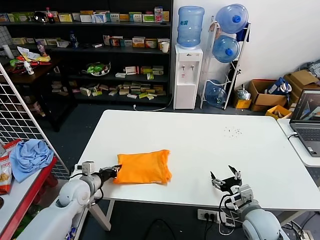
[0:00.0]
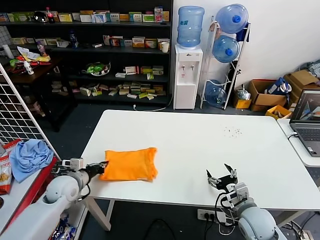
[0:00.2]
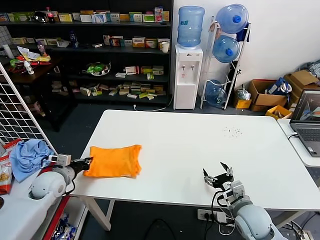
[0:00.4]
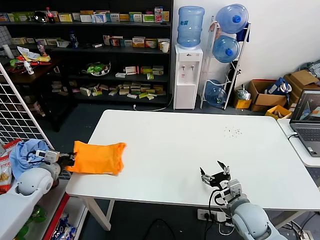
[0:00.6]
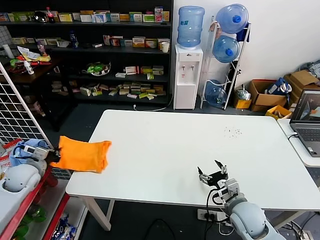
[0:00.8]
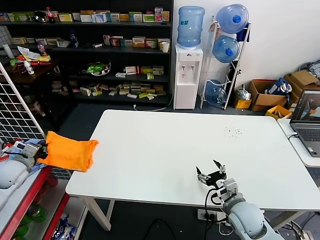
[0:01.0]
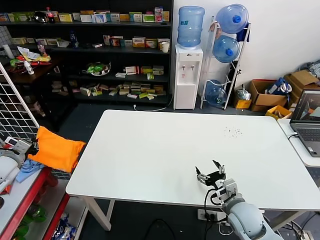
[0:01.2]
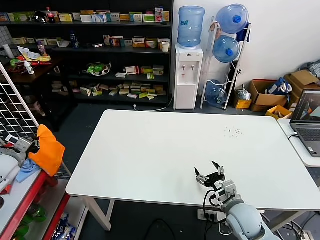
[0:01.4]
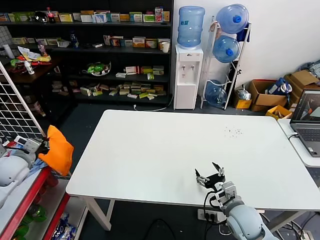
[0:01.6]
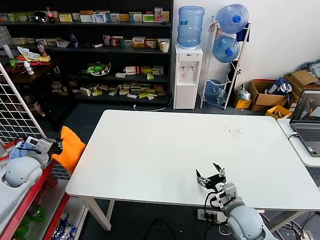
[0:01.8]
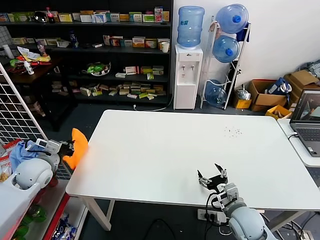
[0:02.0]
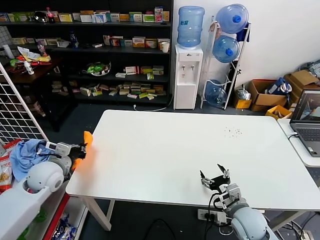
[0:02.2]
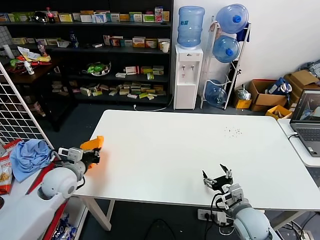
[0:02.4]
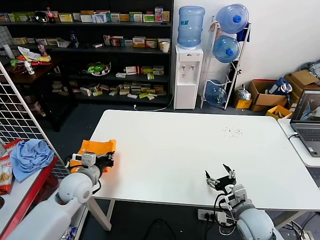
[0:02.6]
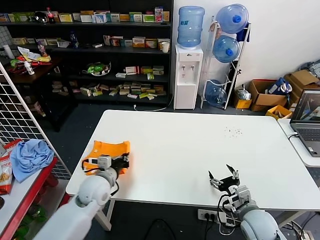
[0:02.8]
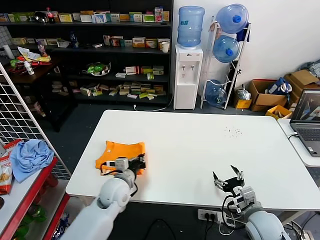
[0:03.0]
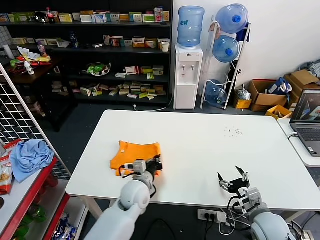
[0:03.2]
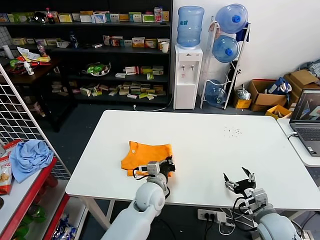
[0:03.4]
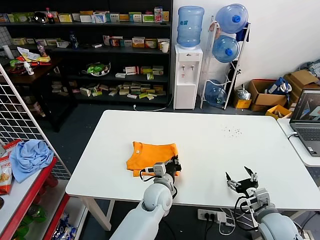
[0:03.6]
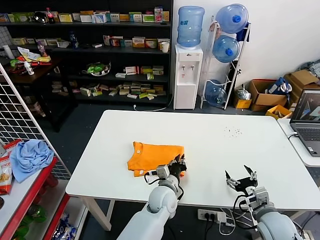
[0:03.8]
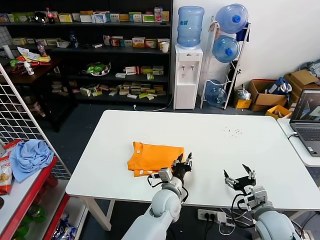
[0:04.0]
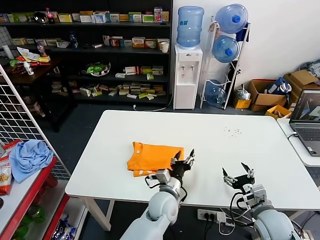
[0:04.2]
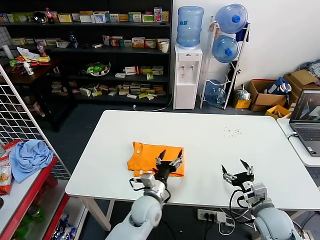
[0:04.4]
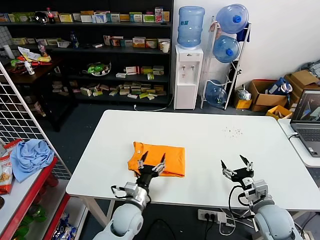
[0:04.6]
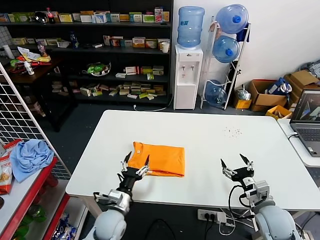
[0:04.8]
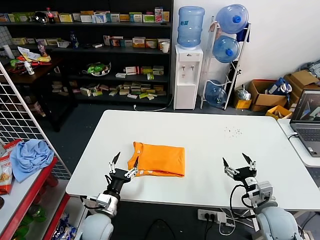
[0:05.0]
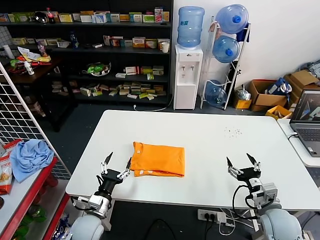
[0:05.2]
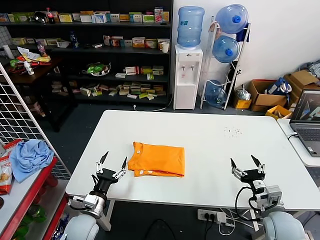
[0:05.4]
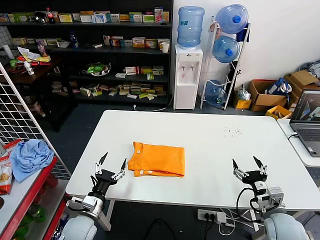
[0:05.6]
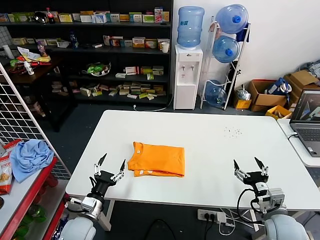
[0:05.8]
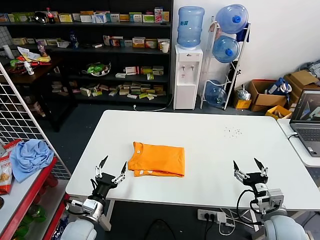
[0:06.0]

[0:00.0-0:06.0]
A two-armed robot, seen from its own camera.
Task of the whole recording: fold and organize the clothes.
Step, 0:00.0 to 0:03.8: Flip the folded clothes over with left gripper.
0:00.0 to 0:01.6: The left gripper travels to the left and upward by roughly 25 cm.
0:01.6 to 0:03.0: The right gripper changes place by approximately 5 cm. Meanwhile the left gripper moves to the right, roughly 30 cm.
0:03.0 to 0:04.4: The left gripper moves to the right, some 15 cm, and opens its fingers.
0:04.4 to 0:06.0: The left gripper is displaced to the left by about 25 cm.

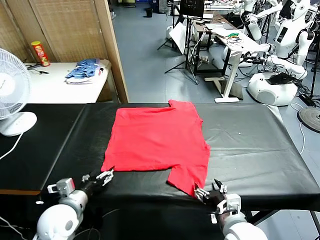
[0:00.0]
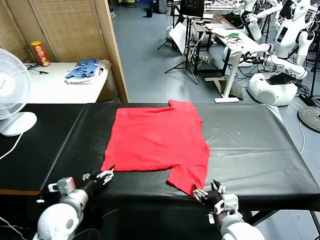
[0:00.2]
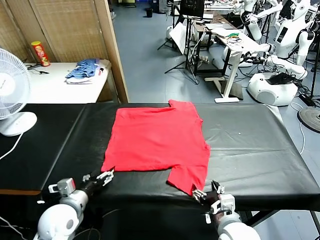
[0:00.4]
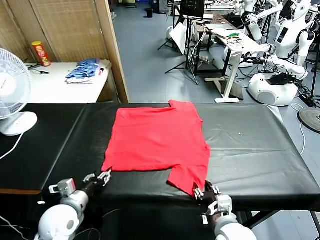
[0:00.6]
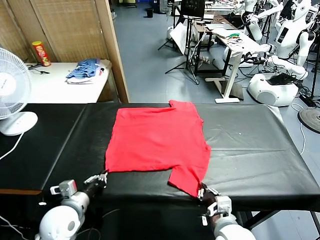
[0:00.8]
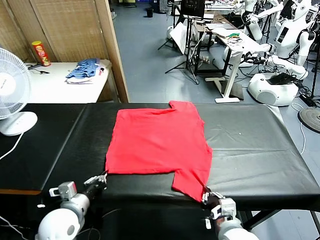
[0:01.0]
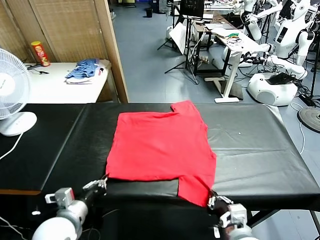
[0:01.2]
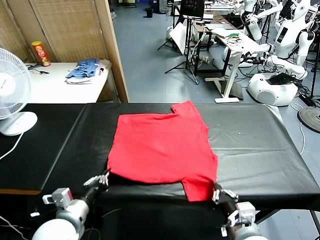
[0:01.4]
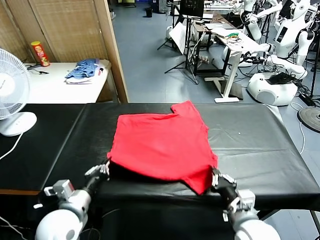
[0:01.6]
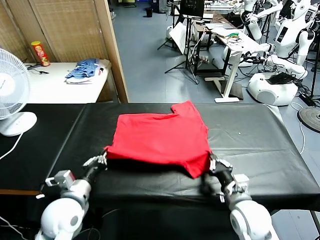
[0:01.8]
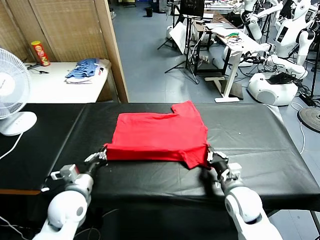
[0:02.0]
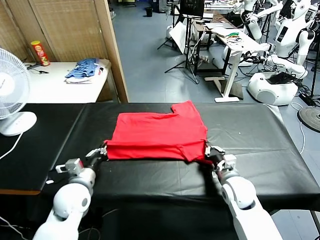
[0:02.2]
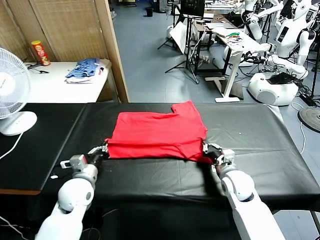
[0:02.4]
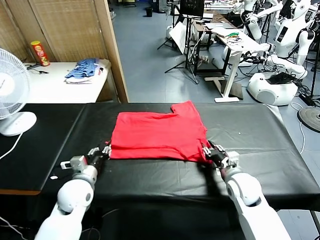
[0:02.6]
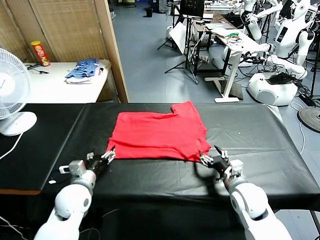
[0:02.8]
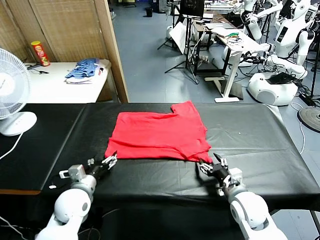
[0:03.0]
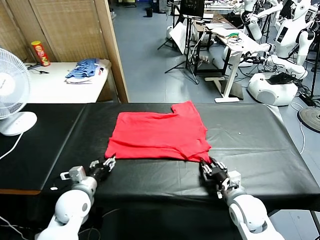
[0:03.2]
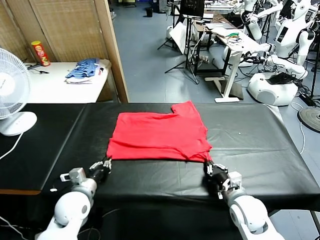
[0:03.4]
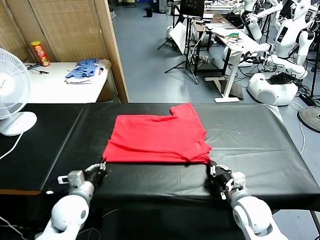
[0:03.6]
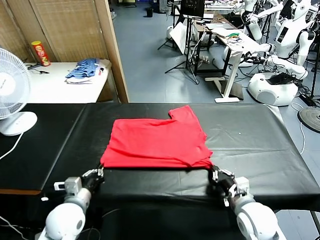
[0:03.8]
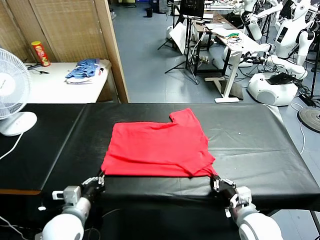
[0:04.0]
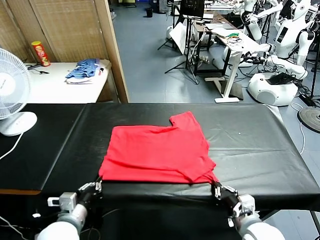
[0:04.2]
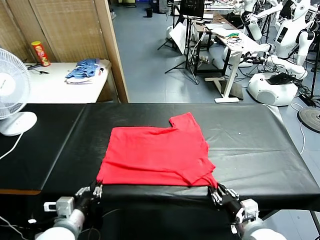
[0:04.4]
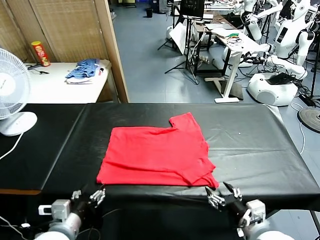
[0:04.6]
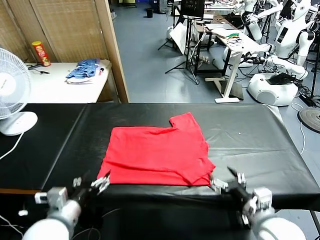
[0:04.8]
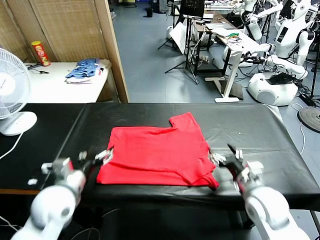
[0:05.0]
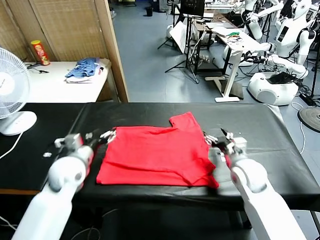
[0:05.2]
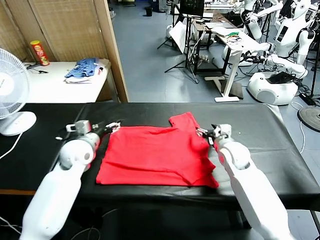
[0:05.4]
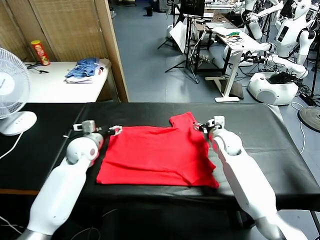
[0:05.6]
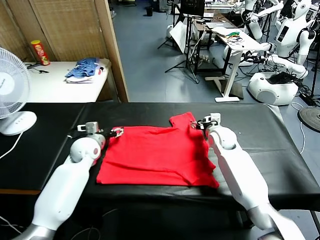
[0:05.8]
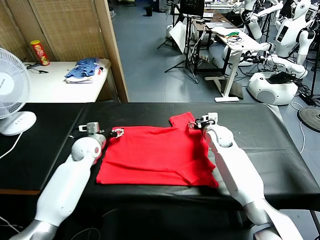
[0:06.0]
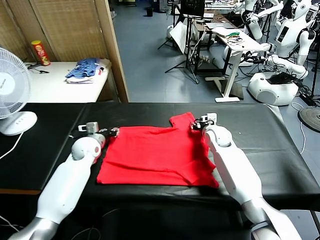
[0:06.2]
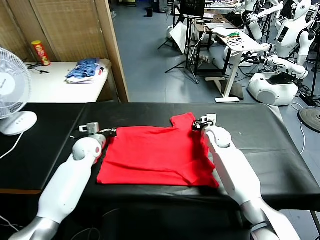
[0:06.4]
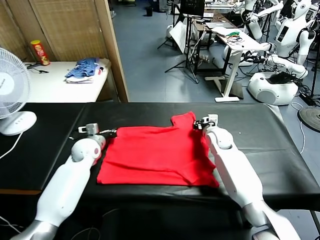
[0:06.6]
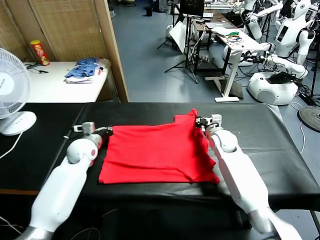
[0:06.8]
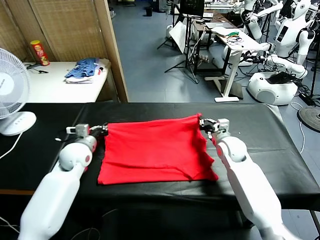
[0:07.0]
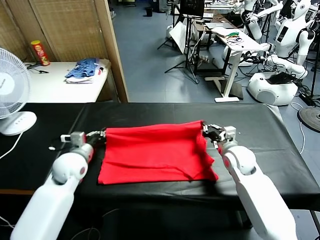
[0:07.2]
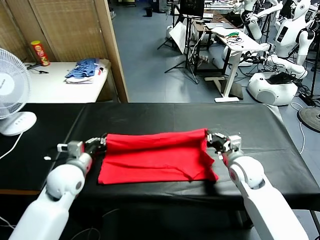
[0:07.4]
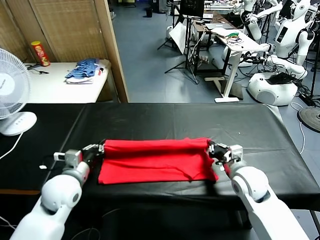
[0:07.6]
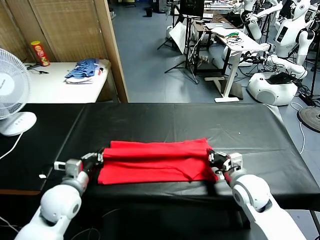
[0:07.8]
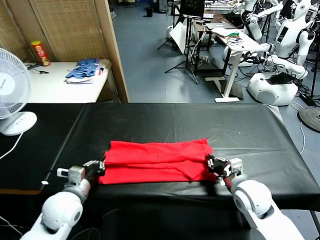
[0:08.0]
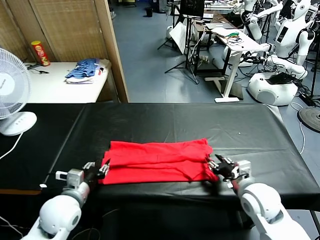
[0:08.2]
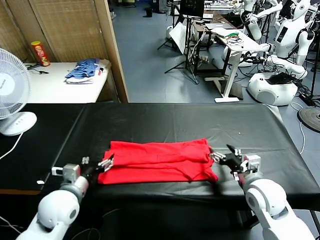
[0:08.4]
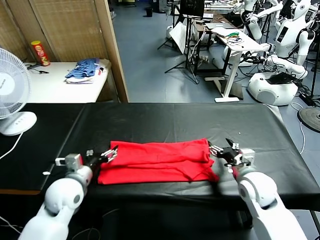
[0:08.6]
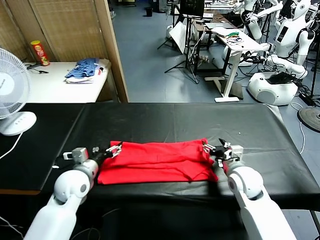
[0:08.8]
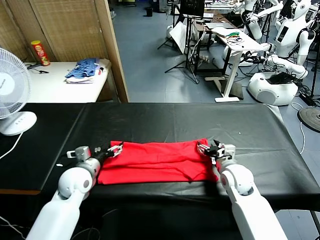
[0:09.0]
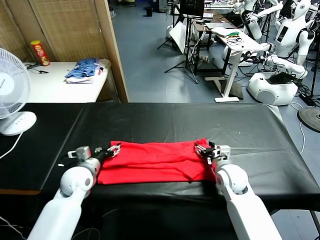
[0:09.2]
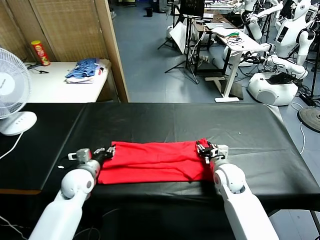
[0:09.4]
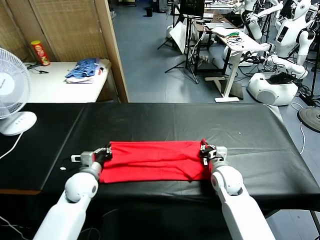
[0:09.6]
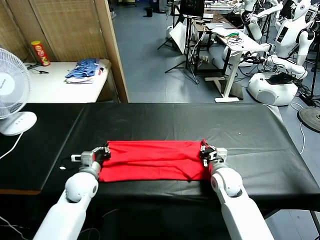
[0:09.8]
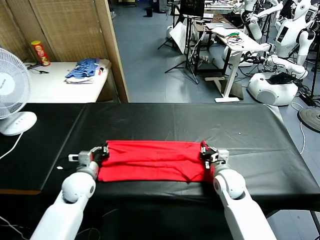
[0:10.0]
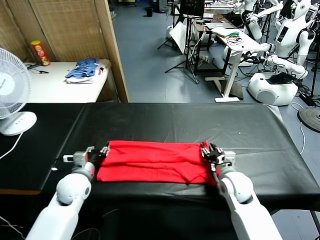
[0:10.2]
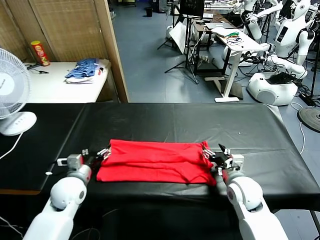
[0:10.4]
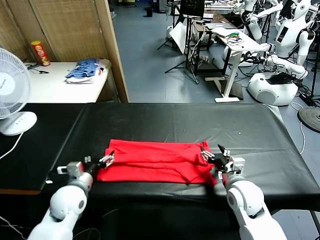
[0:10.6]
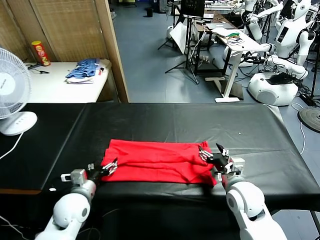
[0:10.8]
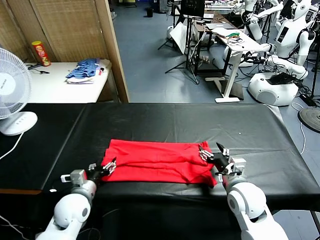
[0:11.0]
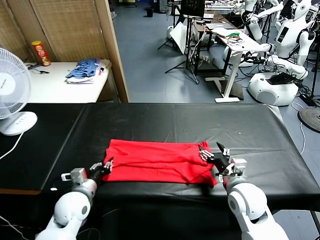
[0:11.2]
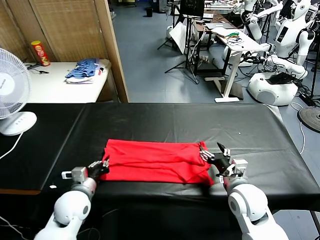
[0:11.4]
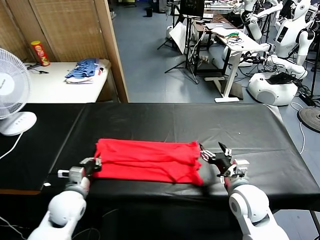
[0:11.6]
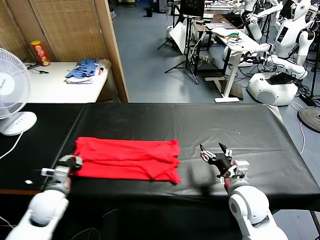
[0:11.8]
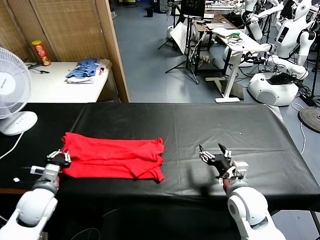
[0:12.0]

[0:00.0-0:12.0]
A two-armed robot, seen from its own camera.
Task of the whole recording: fold and organize the clothes.
Step, 0:00.0 to 0:00.8: use both grippers simultaneously to clamp the lower edge of the clothing fabric.
Step, 0:01.0 to 0:02.8: use both grippers to drag the lower edge of the fabric forward and fold it over the upper edge.
Step, 0:03.0 to 0:04.6: Drag the clothes downward with both gripper.
Step, 0:04.8 to 0:06.6: use both grippers simultaneously to clamp the upper edge of the clothing fabric.
Step, 0:06.8 to 0:08.2: use both grippers to drag the upper edge of the fabric backward and fold it over the lower edge.
Step, 0:08.4 to 0:11.2: use the left gripper to clamp the left edge of the fabric.
0:01.6 to 0:03.0: The right gripper goes forward and returns, some 10 cm each way, and opens and closes again. The left gripper moves downward and forward, some 10 cm, and opens up.
0:03.0 to 0:04.4: The right gripper travels backward and upward by some 15 cm, and opens up. The left gripper shifts approximately 10 cm backward, and closes up.
0:04.4 to 0:06.0: Both grippers travel together forward, about 35 cm. The left gripper opens its fingers.
0:06.0 to 0:07.6: The grippers both shift backward by roughly 20 cm. The left gripper closes up, while the right gripper closes up.
0:07.6 to 0:09.0: Both grippers move forward, about 5 cm. The left gripper opens, while the right gripper opens.
0:09.0 to 0:10.4: The left gripper closes and opens again; the right gripper moves backward, about 5 cm, and closes, then reopens.
0:10.4 to 0:12.0: The left gripper goes approximately 5 cm to the left, and closes its fingers. Meanwhile the right gripper shifts by approximately 5 cm.

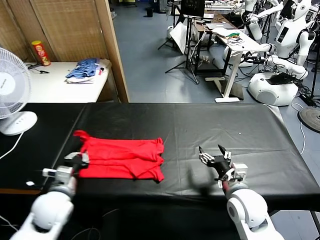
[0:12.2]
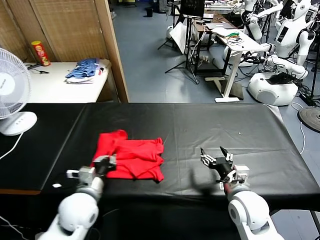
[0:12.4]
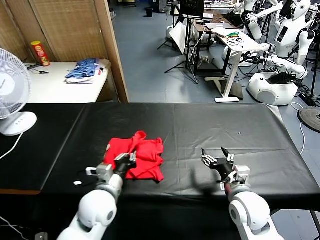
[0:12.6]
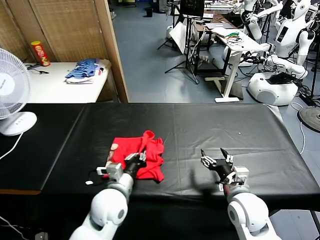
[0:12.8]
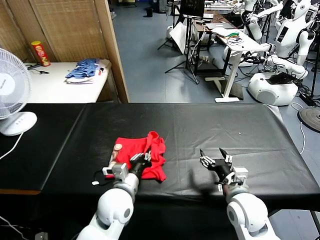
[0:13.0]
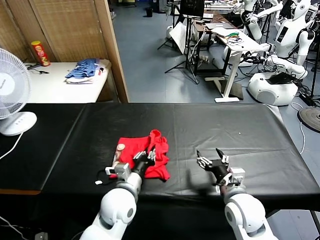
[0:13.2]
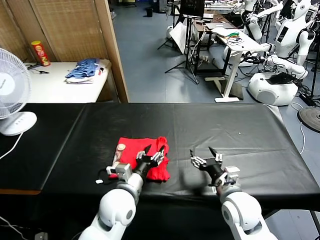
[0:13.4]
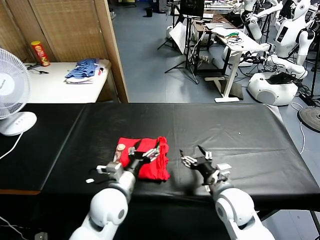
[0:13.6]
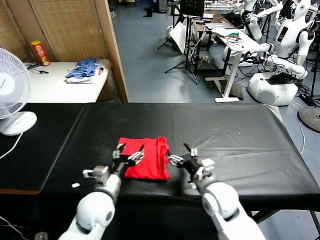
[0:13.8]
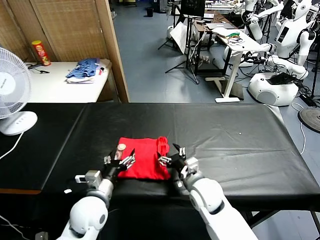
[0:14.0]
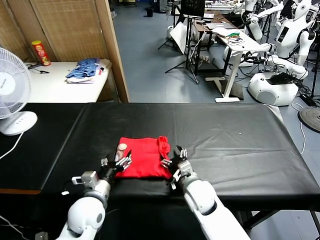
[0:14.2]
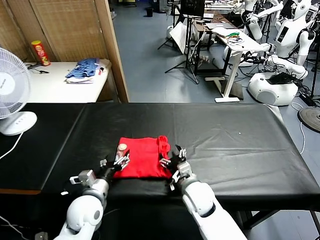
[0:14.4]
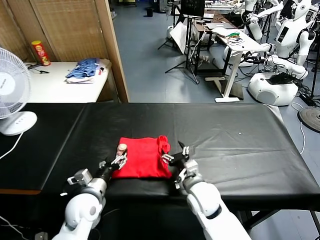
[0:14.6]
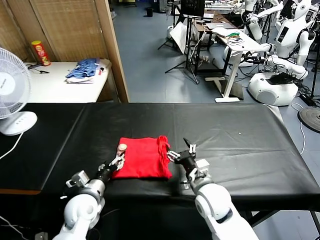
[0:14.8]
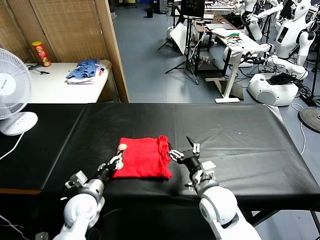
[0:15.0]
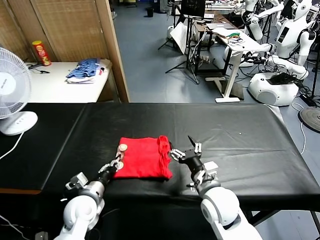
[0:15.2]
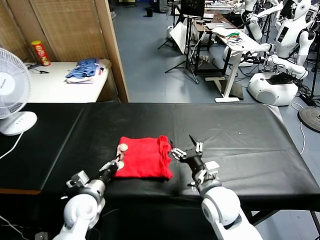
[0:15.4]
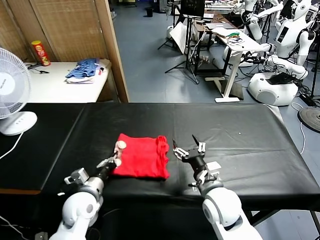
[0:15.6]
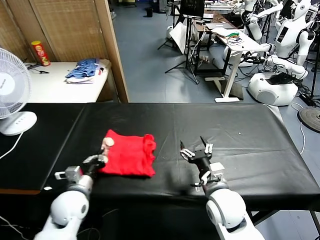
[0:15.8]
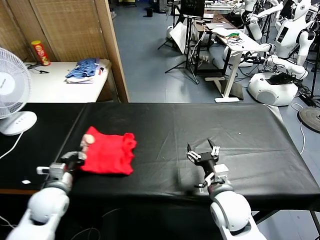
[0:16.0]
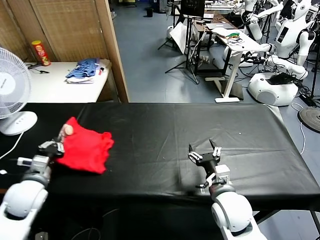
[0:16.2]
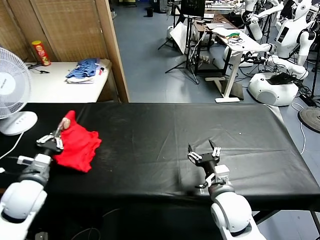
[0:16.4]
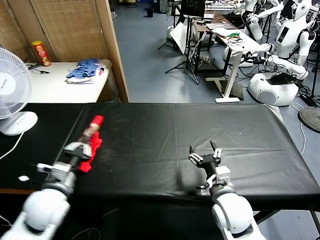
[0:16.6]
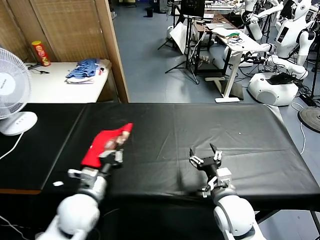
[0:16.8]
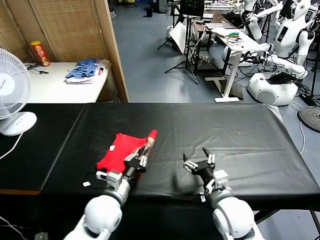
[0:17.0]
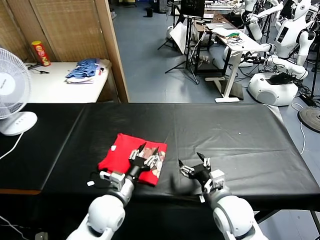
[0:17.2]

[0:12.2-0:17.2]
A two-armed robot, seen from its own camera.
Task of the whole recording: fold and organize the clothes.
Step, 0:12.2 to 0:13.6: use the left gripper to drag the left edge of the fabric to the left and folds it over the right edge.
Step, 0:13.8 to 0:17.2: Flip the folded clothes over with left gripper.
0:12.2 to 0:13.8: The right gripper is displaced to the left by some 10 cm, while the left gripper is displaced to the right by about 10 cm, and opens up.
0:13.8 to 0:15.6: The left gripper goes about 5 cm to the left, and closes up.
0:15.6 to 0:17.2: The left gripper travels to the right by some 10 cm, and opens.
